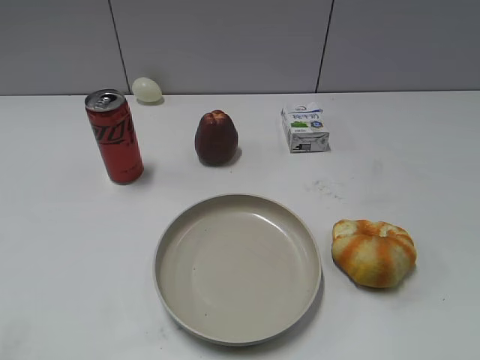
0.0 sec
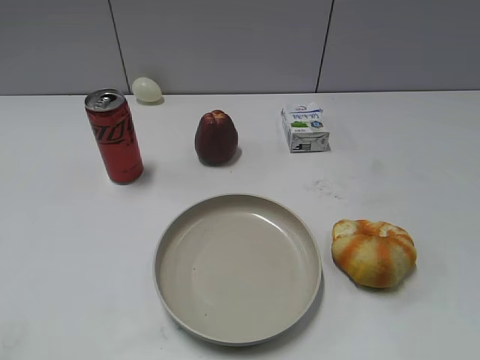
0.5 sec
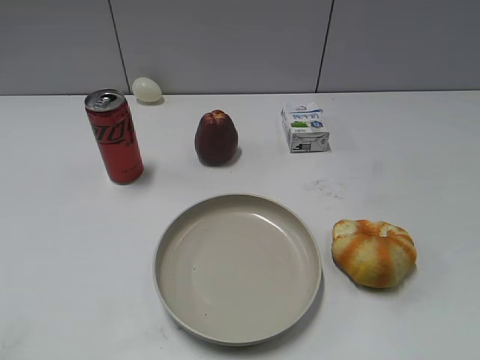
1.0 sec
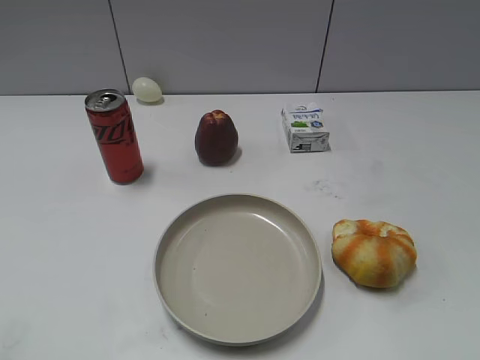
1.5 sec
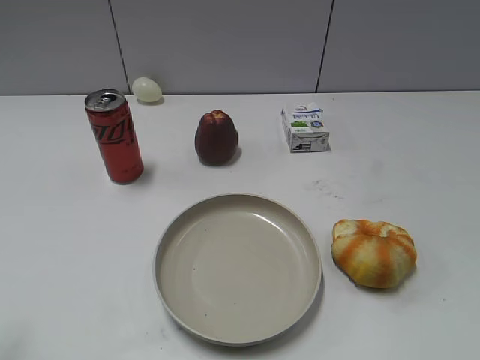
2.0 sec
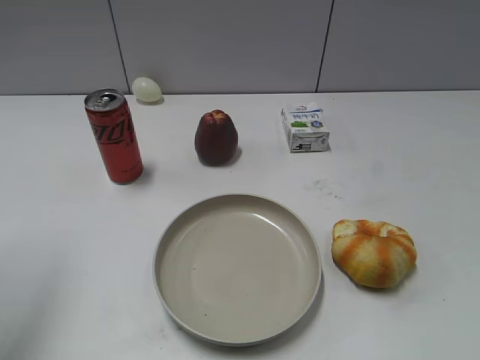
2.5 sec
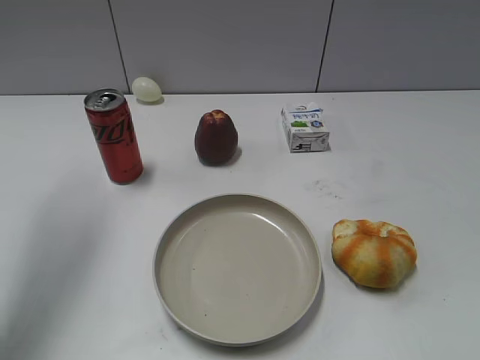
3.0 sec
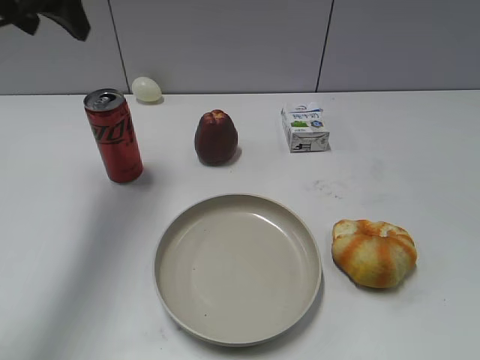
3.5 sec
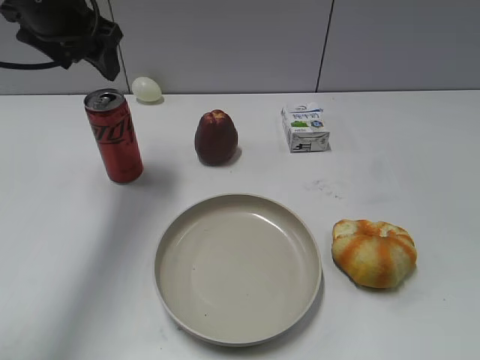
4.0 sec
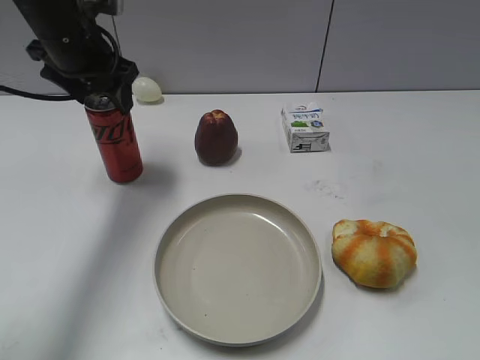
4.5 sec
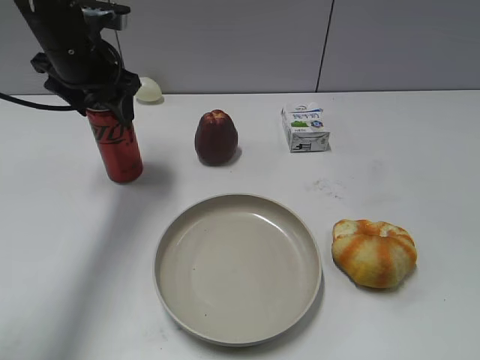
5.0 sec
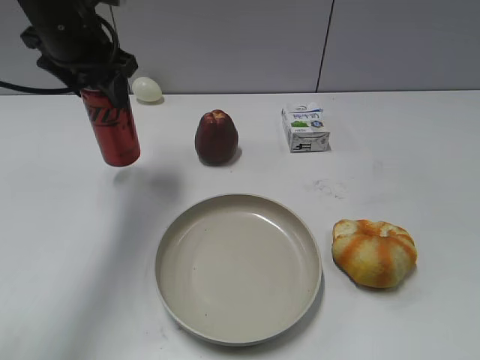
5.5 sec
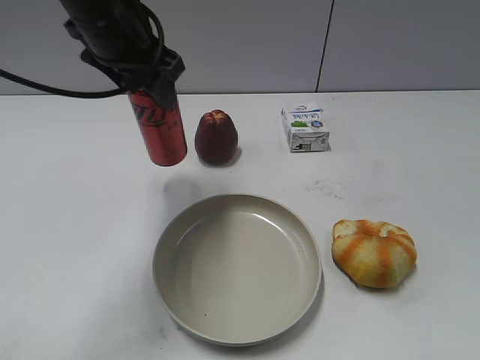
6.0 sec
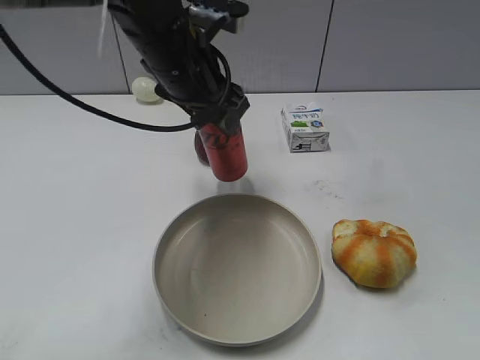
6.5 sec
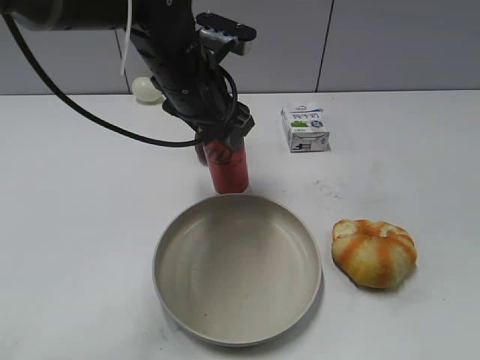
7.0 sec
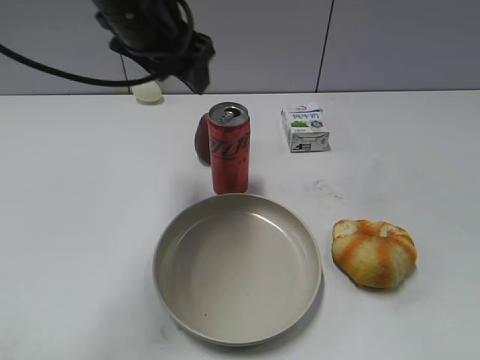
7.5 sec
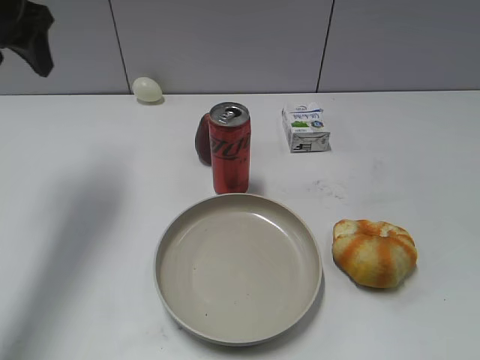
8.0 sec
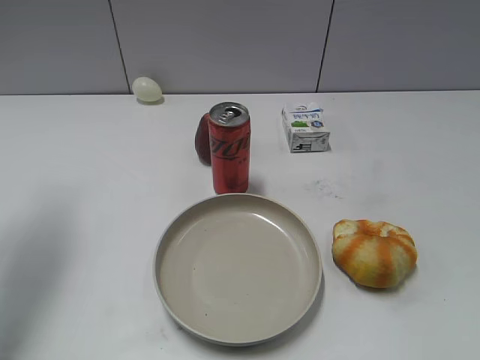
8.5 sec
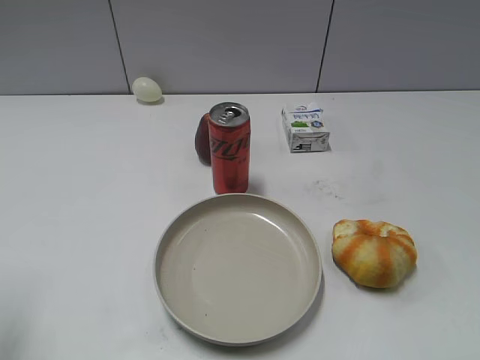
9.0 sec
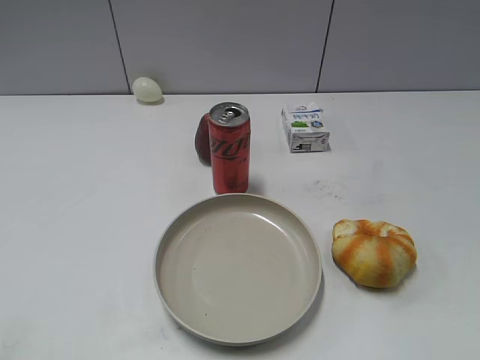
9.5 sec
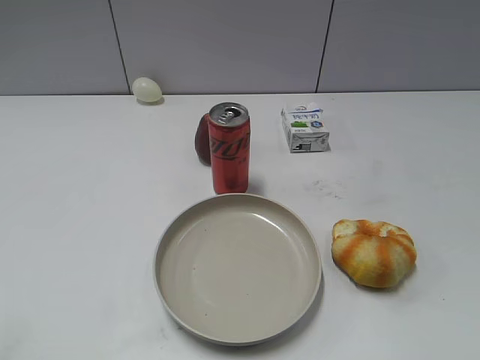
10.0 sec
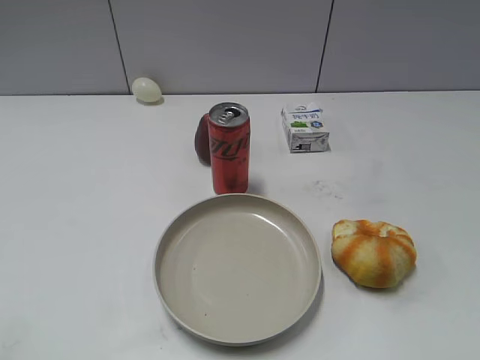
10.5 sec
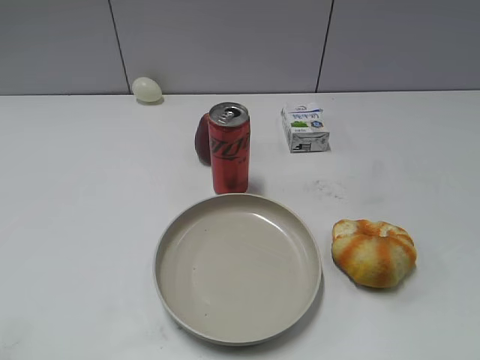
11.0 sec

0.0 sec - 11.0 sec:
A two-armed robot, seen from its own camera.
Step, 2.0 sec - 5.0 sec: Grasp the cola with left gripper.
Step, 5.5 sec - 7.0 sec: Place the cola on the table with left gripper.
2.0 sec - 3.5 sec: The left gripper is displaced forward by about 30 cm, and opens its fingers.
3.5 sec - 5.5 sec: The left gripper is displaced downward by some 5 cm, and closes up.
5.5 sec - 7.5 sec: The left gripper goes approximately 5 cm to the right, and opens its fingers.
7.5 sec - 9.0 sec: The left gripper moves to the left and backward, some 30 cm, and closes its fingers.

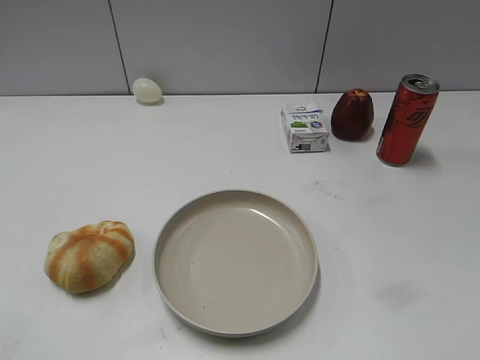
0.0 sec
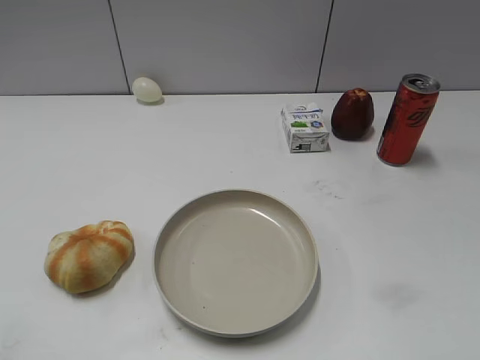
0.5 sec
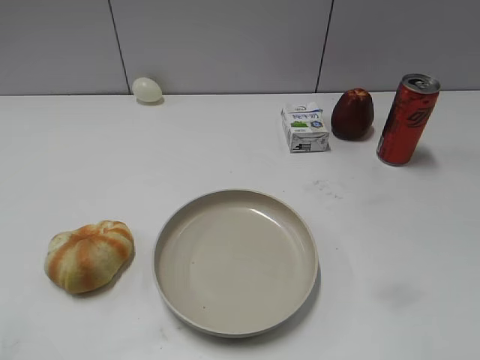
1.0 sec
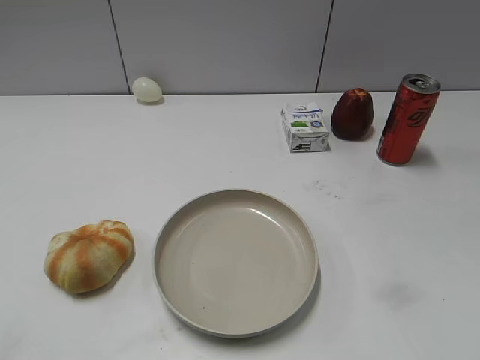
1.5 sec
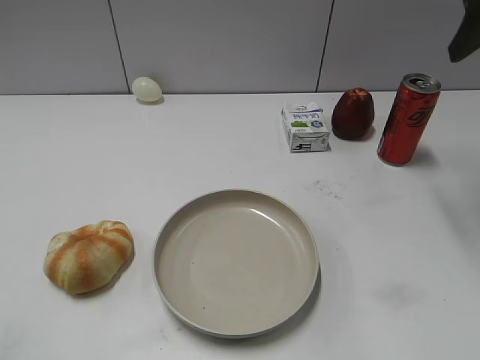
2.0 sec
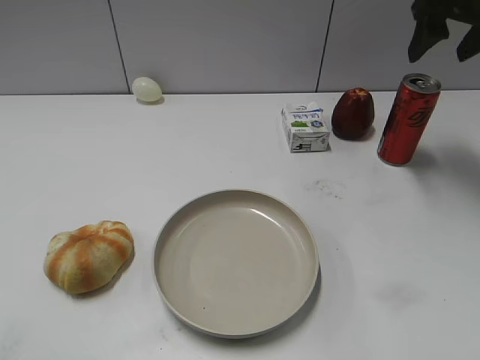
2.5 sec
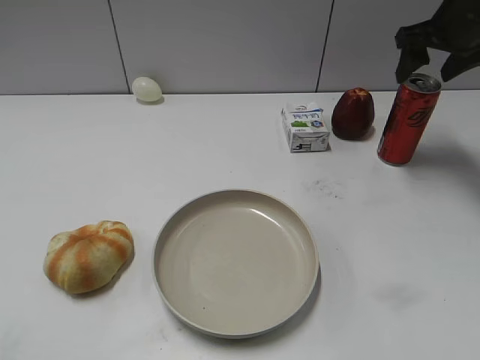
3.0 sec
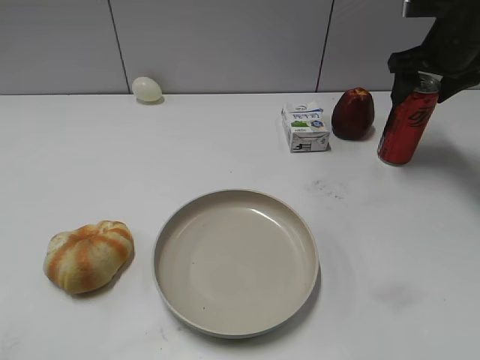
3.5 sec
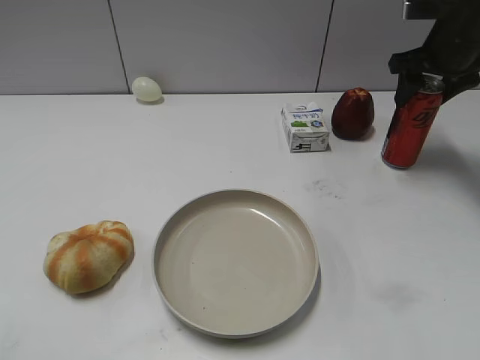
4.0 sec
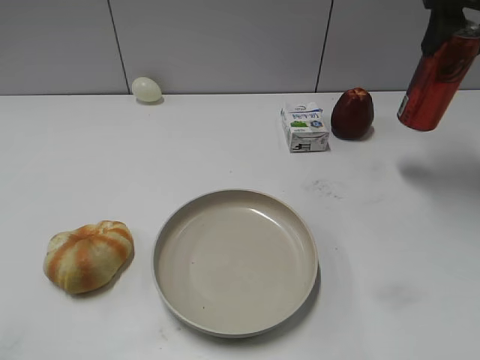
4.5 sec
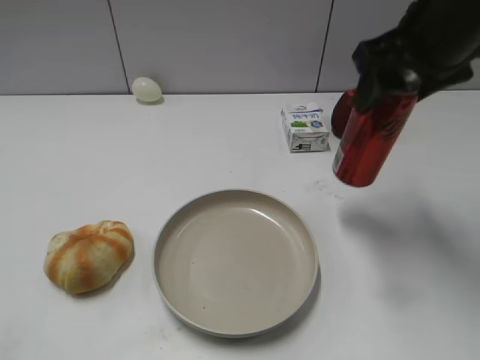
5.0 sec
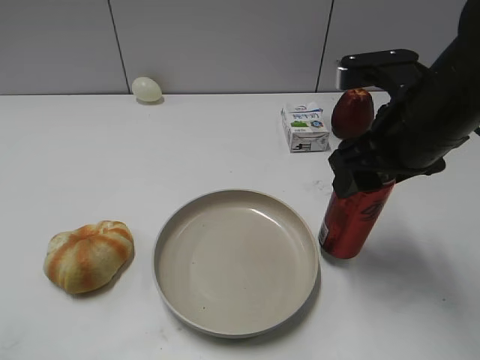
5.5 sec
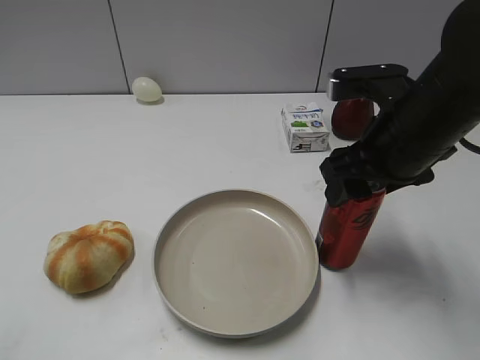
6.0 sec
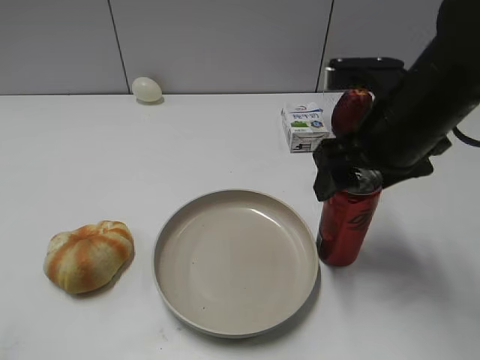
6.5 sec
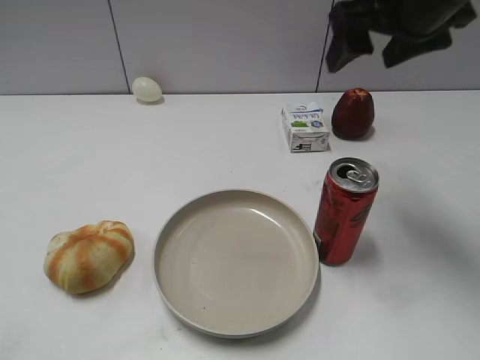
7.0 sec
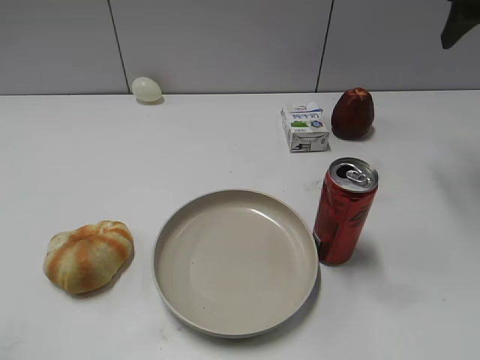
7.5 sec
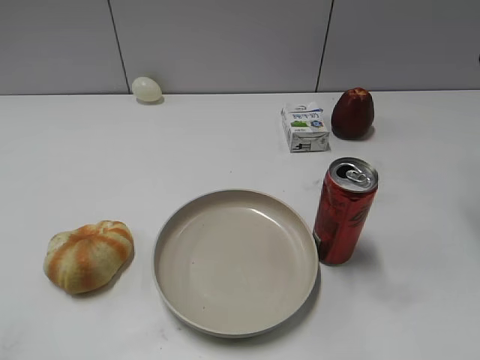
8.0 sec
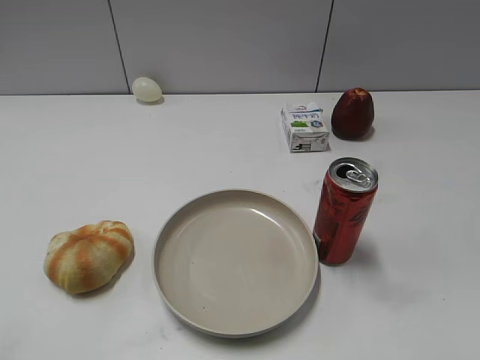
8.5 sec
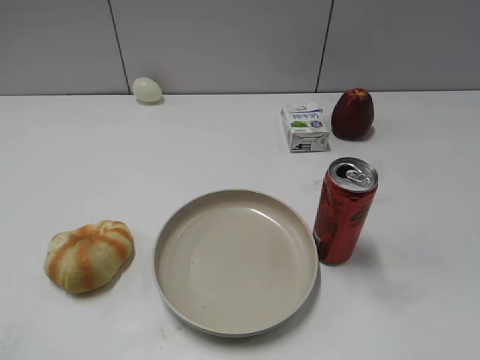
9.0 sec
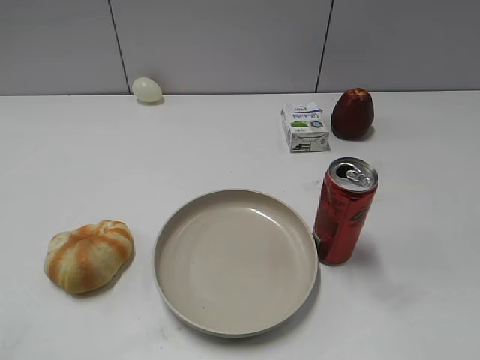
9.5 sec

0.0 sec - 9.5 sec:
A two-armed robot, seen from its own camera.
Step, 1.0 sec - 3.5 sec: Grasp the cola with right gripper.
Step, 4.0 sec - 6.5 sec: Place the cola on the table with right gripper.
2.0 sec - 4.0 sec: The right gripper is displaced forward and downward by approximately 15 cm, and closes.
4.0 sec - 5.5 sec: The right gripper goes some 20 cm backward and to the left.
5.5 sec - 7.5 sec: The right gripper heads to the right, forward and upward, covering approximately 20 cm, and opens.
7.5 sec - 9.5 sec: The right gripper moves backward, approximately 40 cm.
